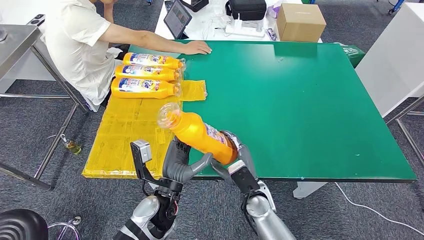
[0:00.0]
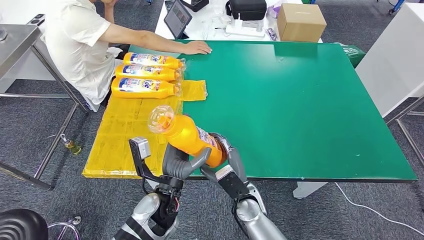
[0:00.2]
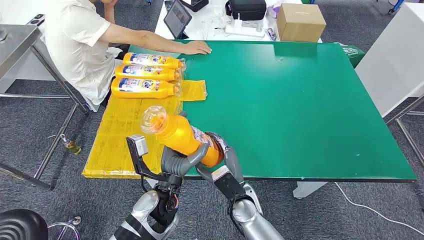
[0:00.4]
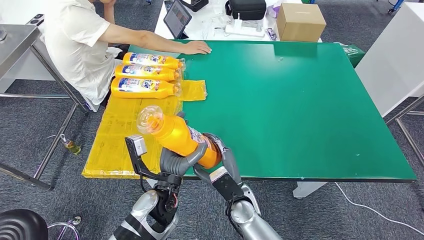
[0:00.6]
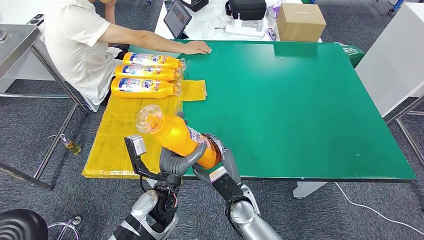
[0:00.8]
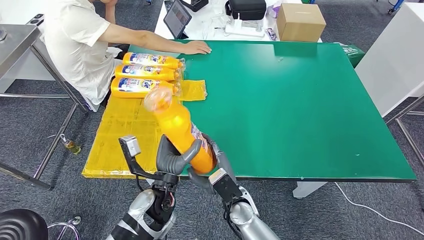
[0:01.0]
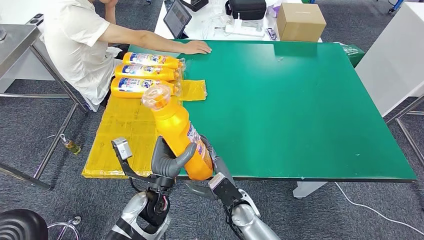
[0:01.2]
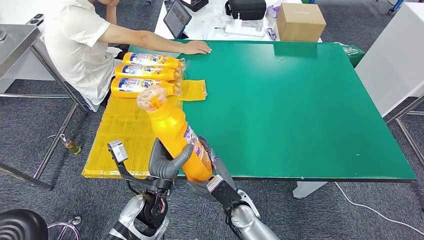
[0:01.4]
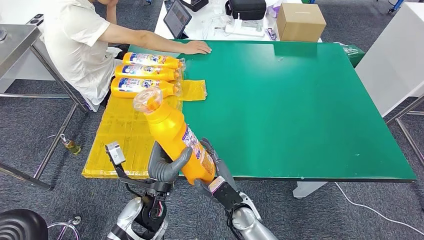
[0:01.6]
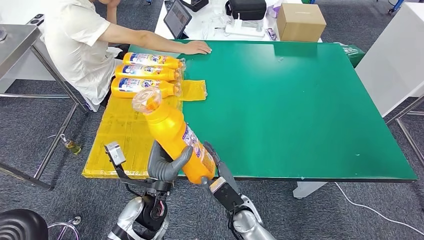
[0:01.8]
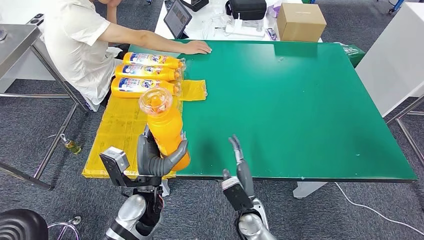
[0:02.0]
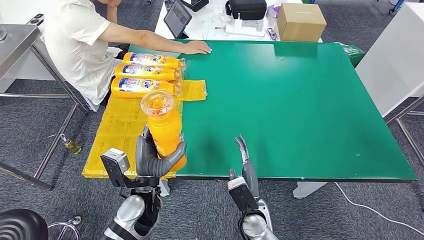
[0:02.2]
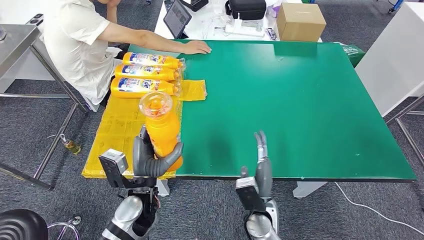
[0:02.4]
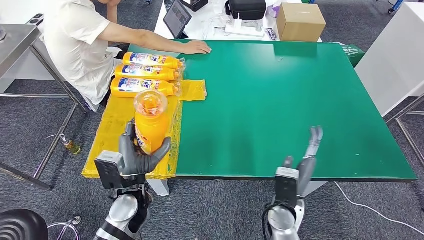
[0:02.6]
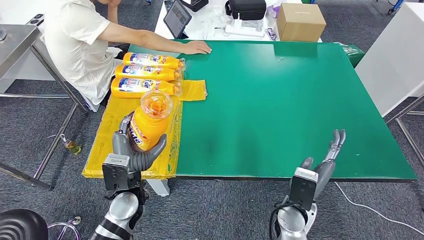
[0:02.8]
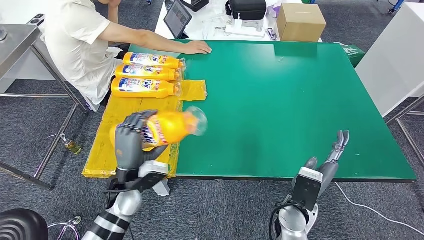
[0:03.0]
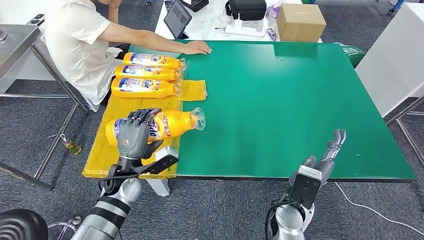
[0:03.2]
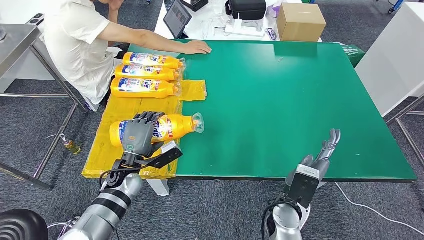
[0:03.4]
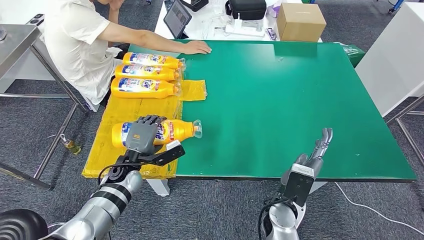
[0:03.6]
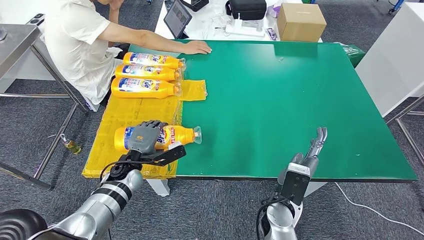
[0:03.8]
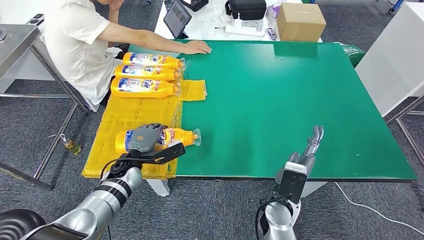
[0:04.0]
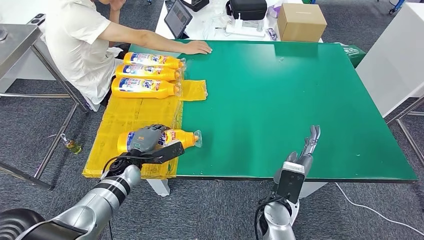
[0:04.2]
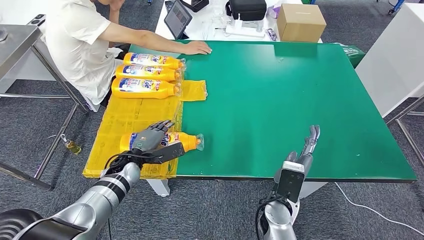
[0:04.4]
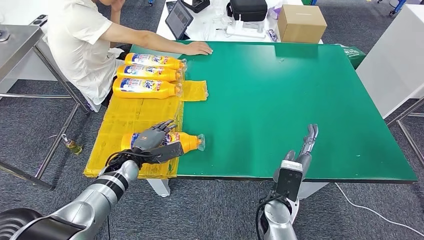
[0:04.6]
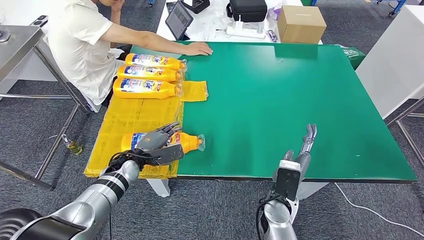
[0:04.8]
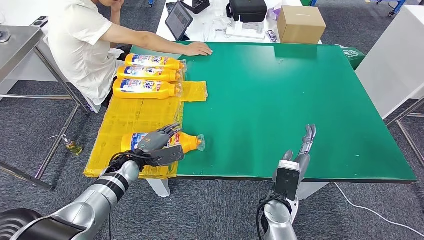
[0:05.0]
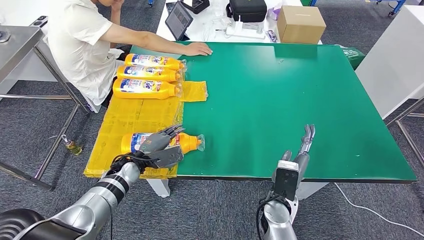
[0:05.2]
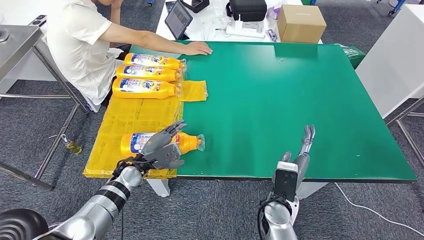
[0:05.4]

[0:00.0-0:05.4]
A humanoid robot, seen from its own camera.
Step, 0:00.8 to 0:05.4: Flip the fast-moving consumer goods bottle to the front side.
0:00.0 to 0:01.4: The right hand ends up about 5 cm from where it was.
0:01.4 to 0:02.8: The right hand heads to the right and upward, covering some 15 cm. The left hand is displaced to the left by about 5 cm.
0:02.8 to 0:04.0: The left hand travels forward and downward by approximately 10 cm.

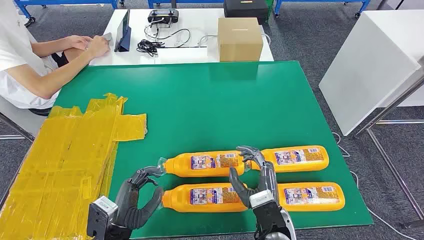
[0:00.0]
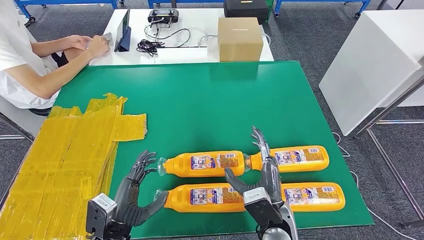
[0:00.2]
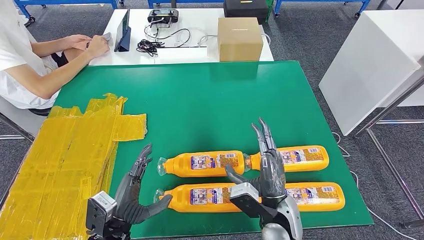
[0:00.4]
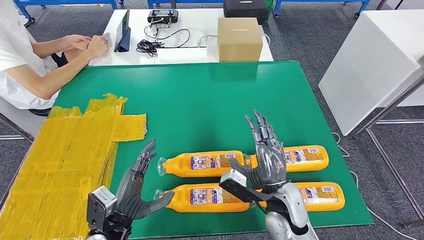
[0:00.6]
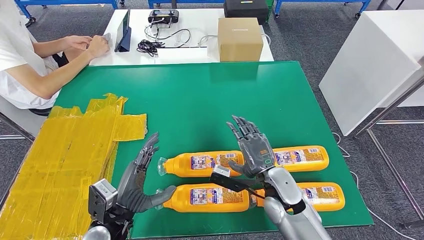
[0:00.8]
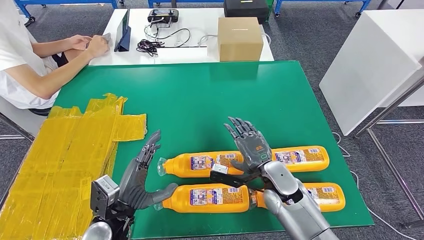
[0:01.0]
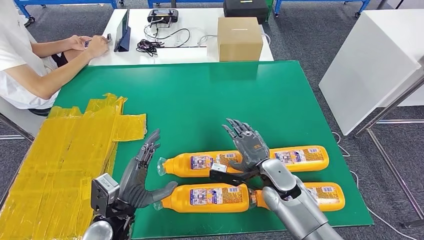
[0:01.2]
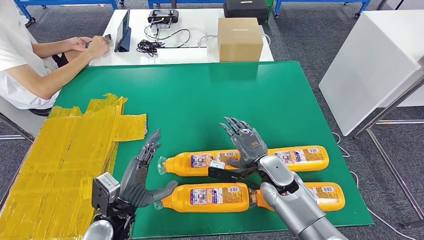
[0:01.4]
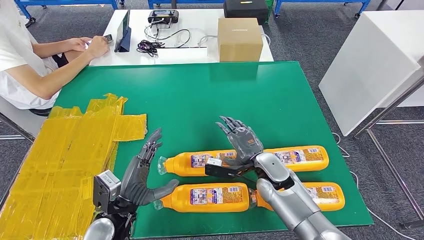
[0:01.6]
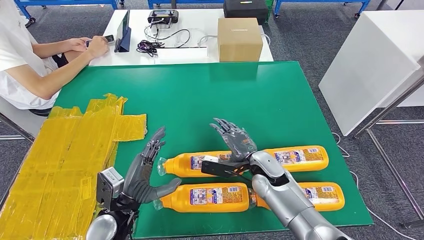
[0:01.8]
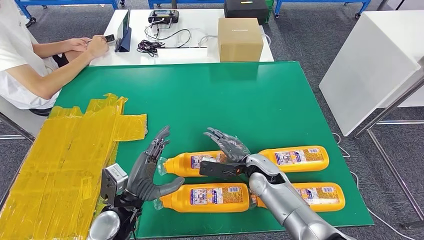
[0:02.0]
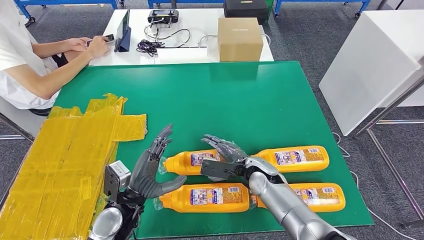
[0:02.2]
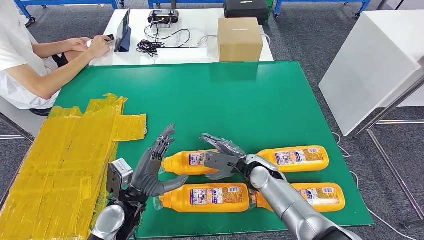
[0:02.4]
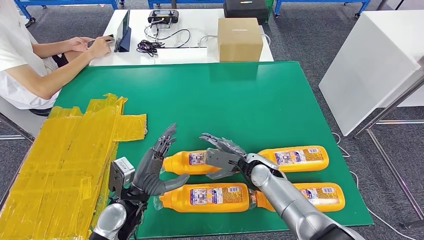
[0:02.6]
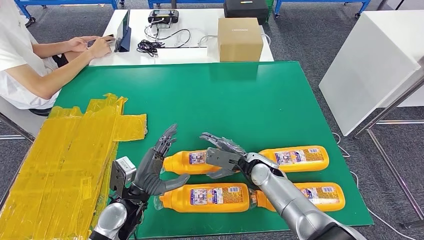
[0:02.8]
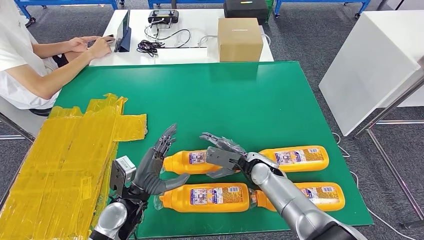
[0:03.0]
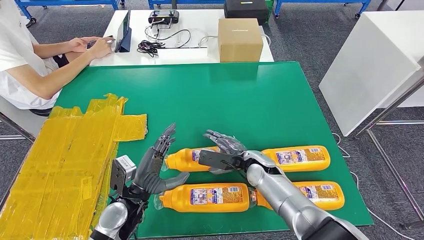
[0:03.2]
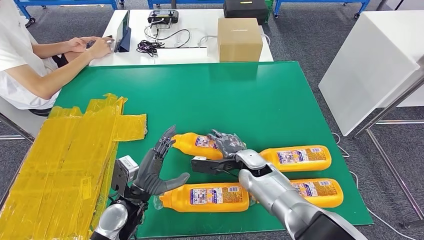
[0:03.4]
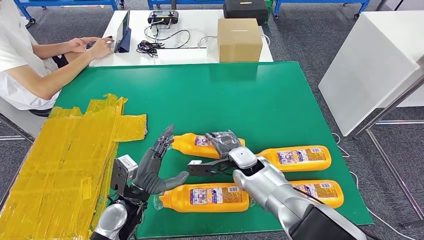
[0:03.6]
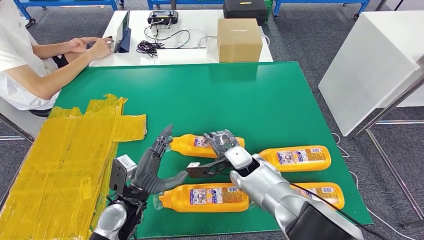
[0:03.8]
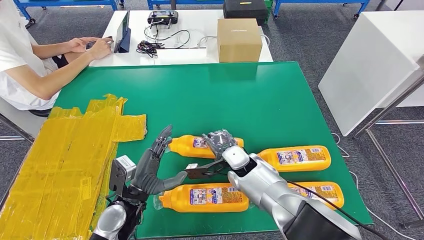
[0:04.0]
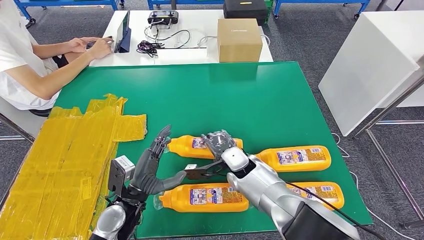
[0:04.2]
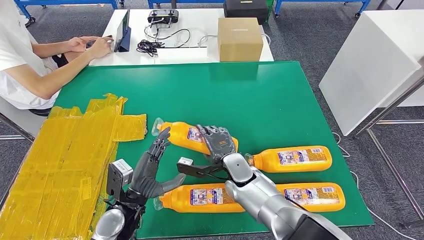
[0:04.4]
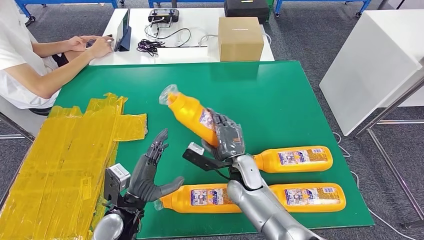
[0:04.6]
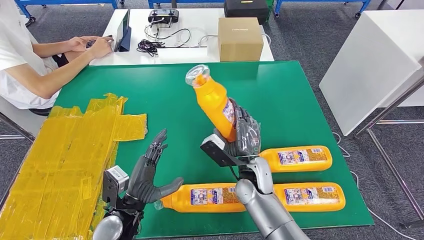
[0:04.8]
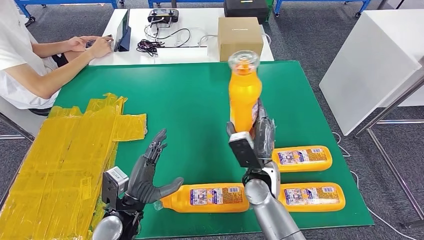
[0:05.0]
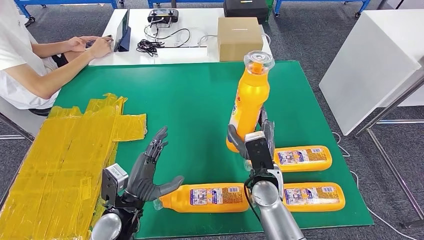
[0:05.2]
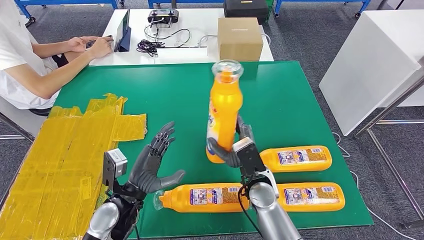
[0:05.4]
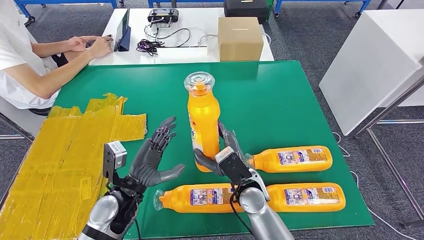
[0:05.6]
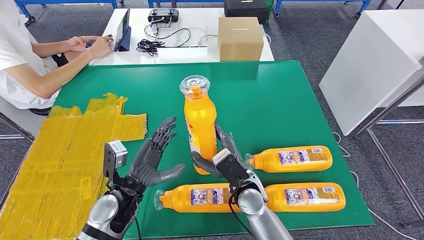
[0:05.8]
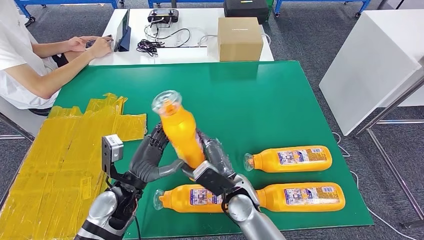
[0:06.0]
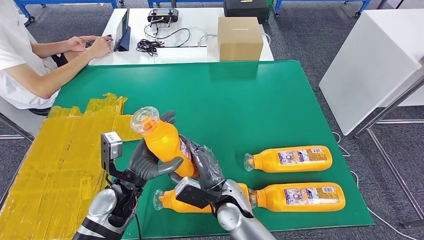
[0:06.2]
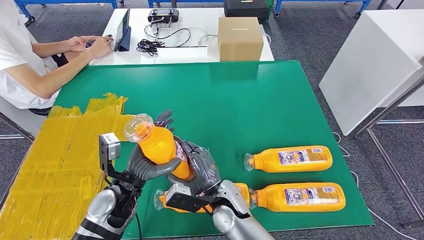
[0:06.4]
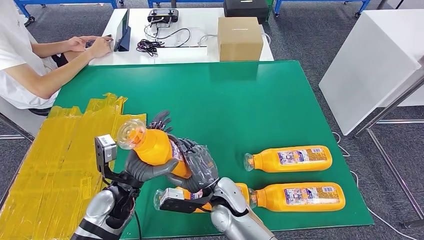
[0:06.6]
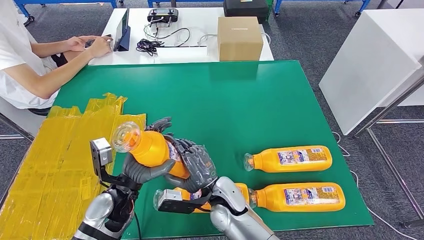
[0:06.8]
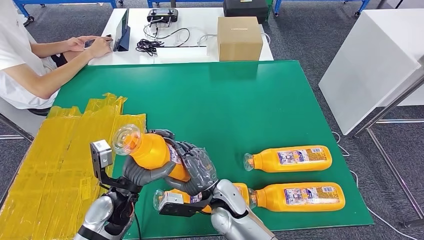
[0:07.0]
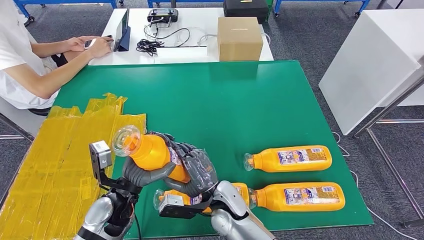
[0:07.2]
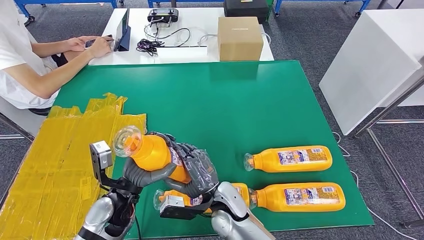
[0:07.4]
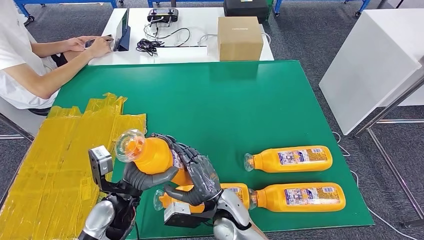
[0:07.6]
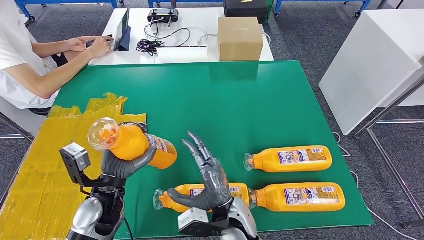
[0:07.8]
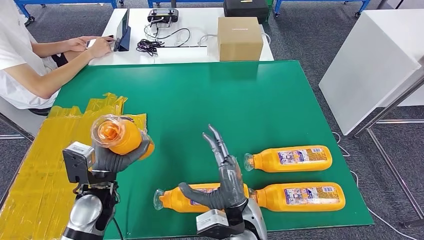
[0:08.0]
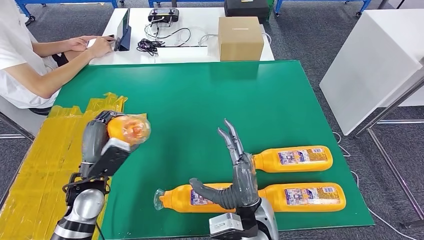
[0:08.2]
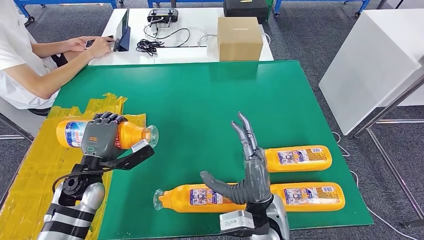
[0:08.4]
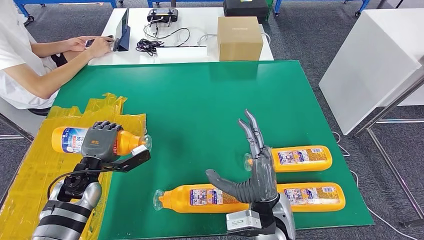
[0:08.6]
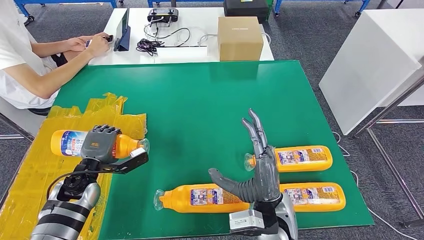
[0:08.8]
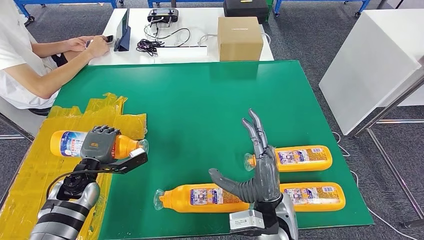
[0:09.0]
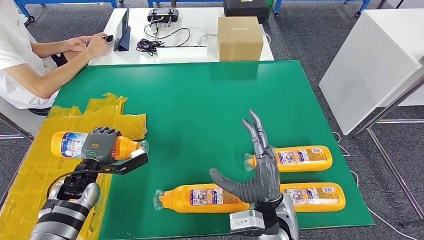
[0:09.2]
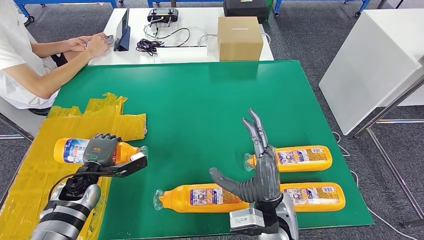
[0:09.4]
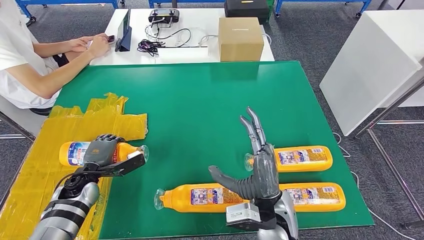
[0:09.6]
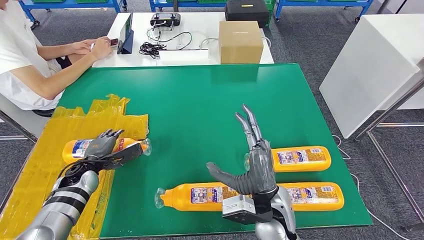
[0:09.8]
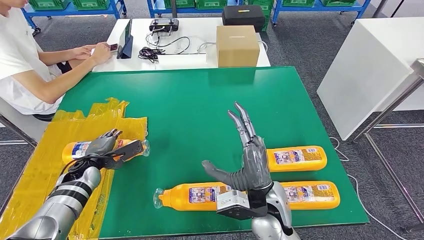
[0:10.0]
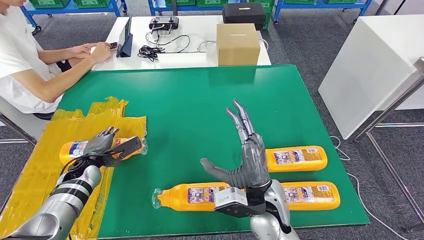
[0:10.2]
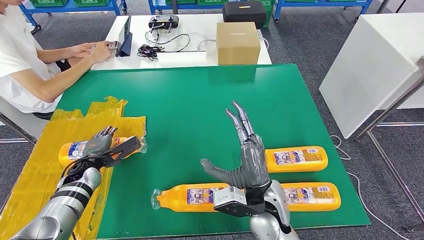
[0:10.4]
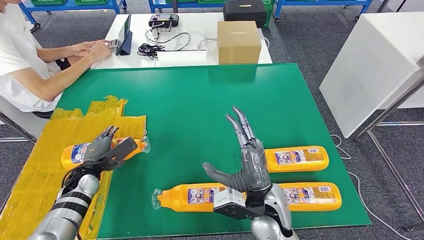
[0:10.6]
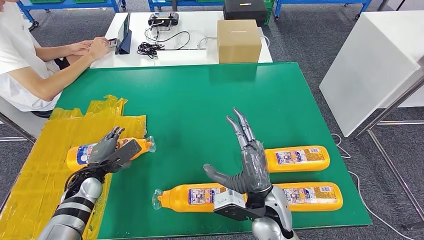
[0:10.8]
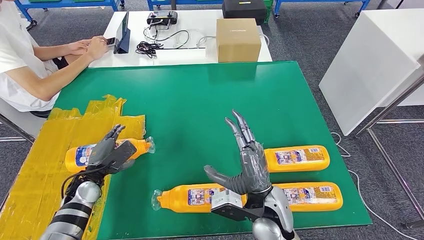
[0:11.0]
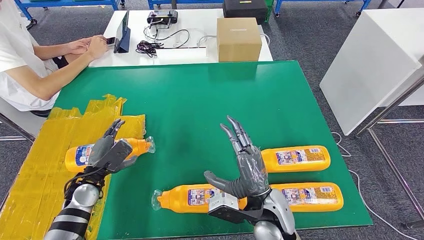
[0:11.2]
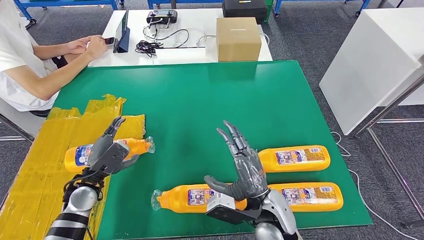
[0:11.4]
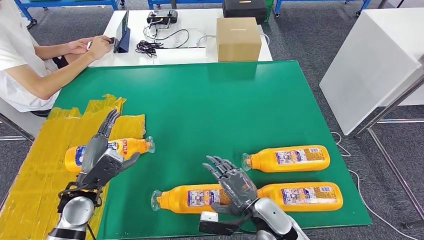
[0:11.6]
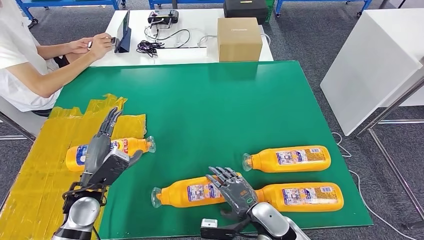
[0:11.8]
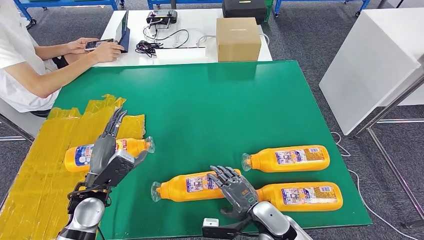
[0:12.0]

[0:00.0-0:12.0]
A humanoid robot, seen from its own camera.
Step, 0:00.0 to 0:05.4: Take the fast-moving consumer goods bottle from the table.
Step, 0:05.6 to 0:10.0: Flip the fast-moving consumer goods bottle to the front side.
0:03.0 to 0:04.4: The right hand is displaced to the left by roughly 5 cm.
0:04.4 to 0:06.0: The right hand shifts approximately 5 cm backward.
0:06.0 to 0:07.6: The right hand shifts by about 5 cm.
0:07.6 to 0:09.0: The left hand heads to the left and forward, covering about 15 cm. The right hand travels to the right and upward by about 10 cm.
